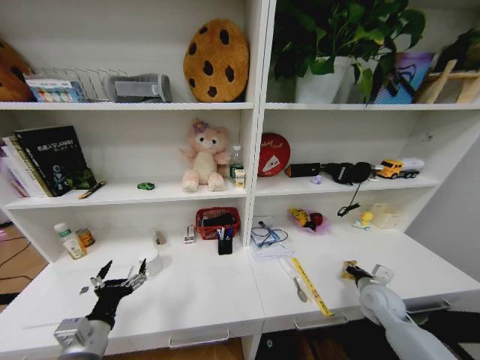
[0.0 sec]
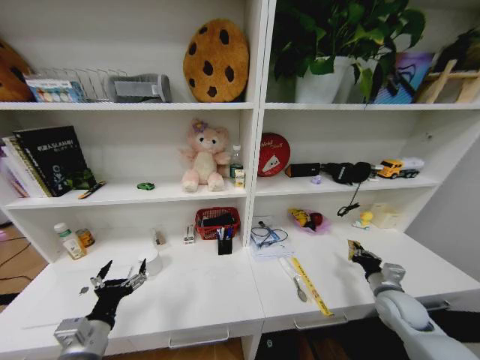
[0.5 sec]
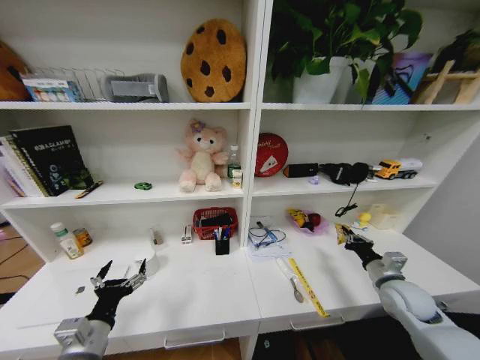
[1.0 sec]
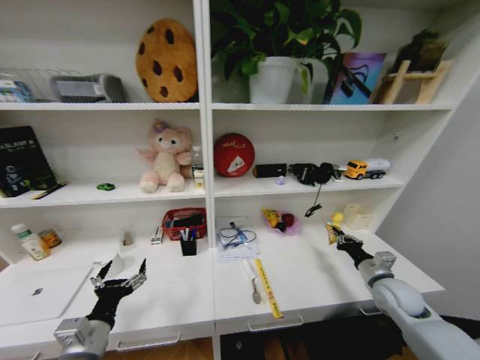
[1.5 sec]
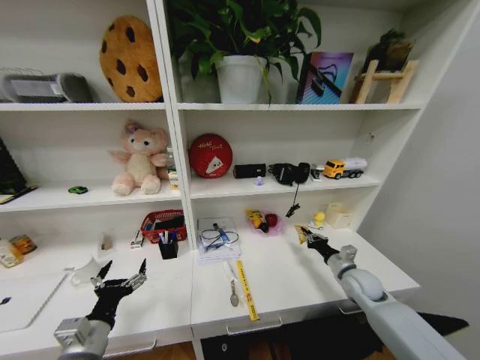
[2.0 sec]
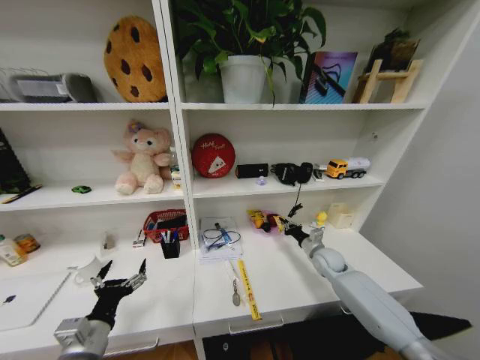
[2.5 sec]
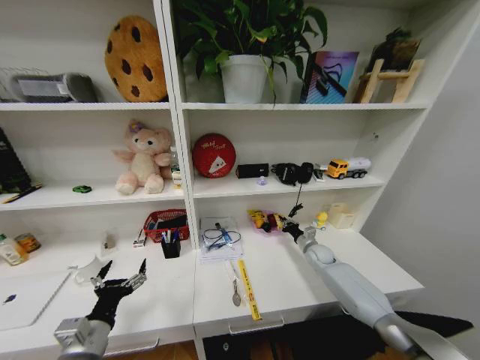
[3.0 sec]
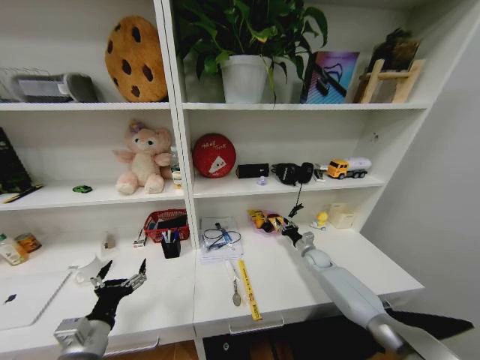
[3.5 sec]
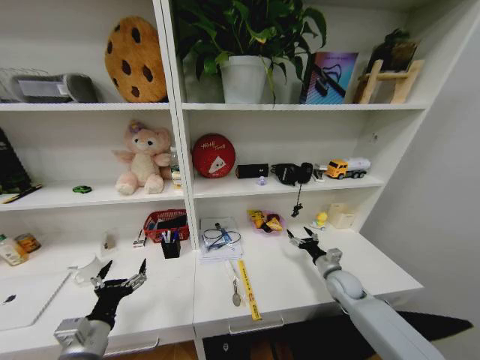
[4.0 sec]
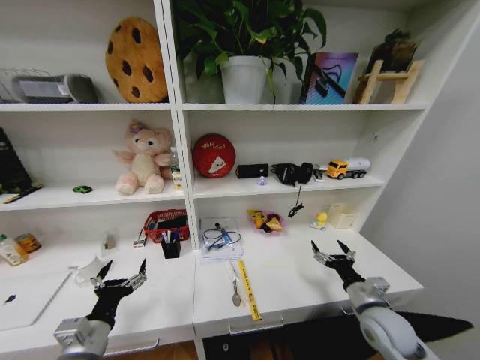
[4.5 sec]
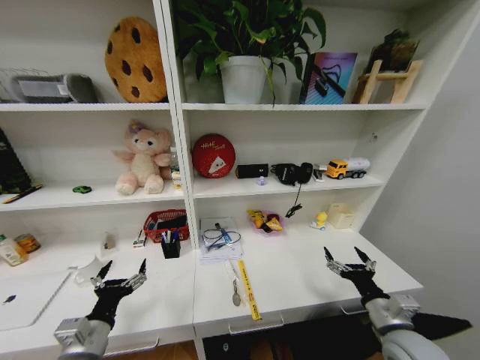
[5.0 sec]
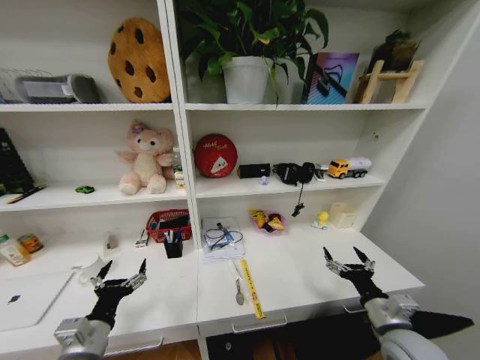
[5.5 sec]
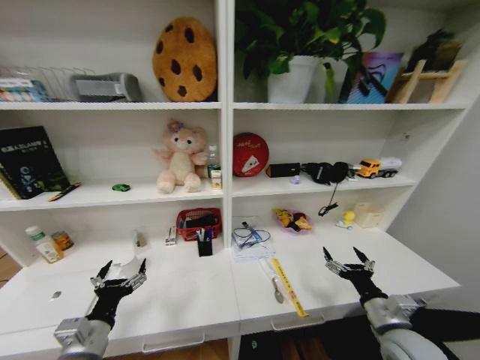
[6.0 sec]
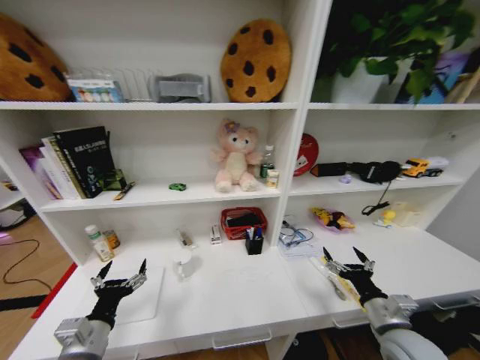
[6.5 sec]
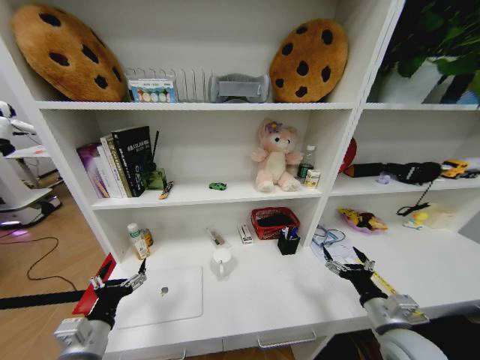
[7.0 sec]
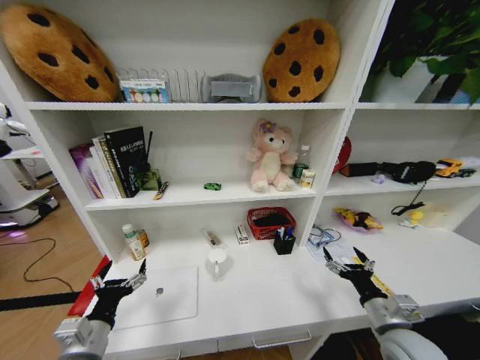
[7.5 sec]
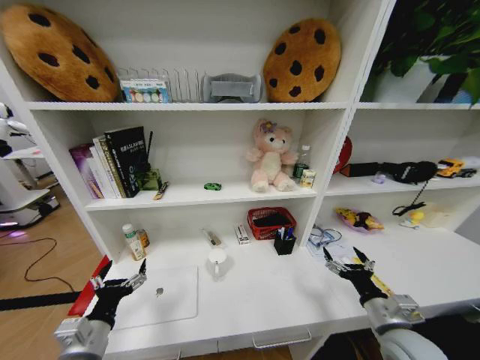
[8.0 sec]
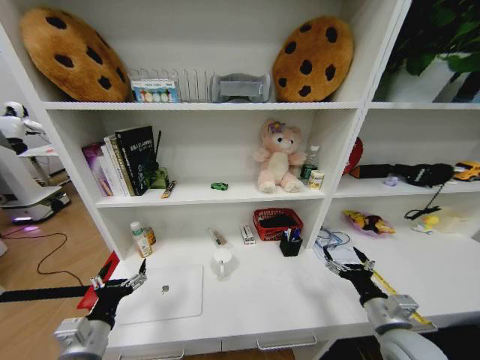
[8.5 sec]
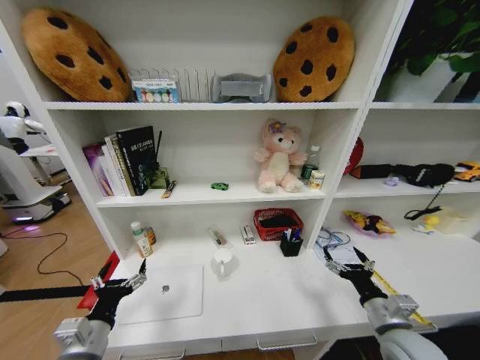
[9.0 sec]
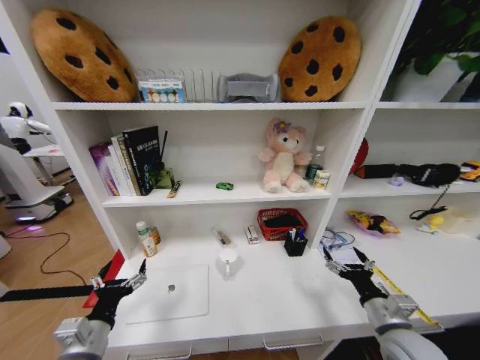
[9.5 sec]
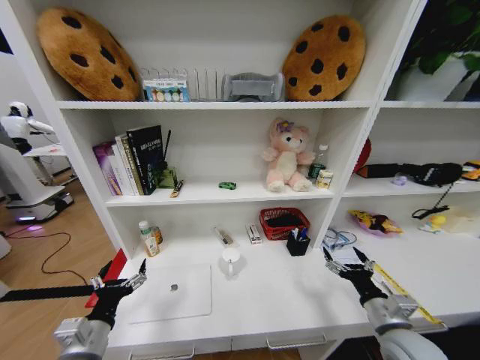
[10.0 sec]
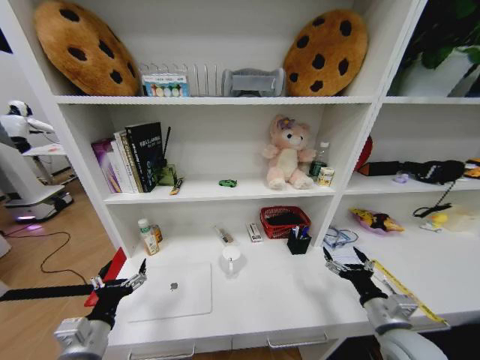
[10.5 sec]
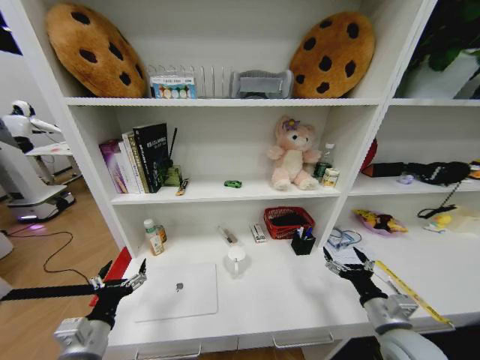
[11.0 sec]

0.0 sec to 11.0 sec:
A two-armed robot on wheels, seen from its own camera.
Task of the whole recording: Organize the objects on the table.
0.0 sec to 2.0 sec: The right gripper shifts by approximately 5 cm.
2.0 sec to 3.5 sec: The right gripper travels forward and downward by about 15 cm, and opens its fingers.
3.5 sec to 5.5 sec: The right gripper moves backward and upward, some 35 cm, and opens.
